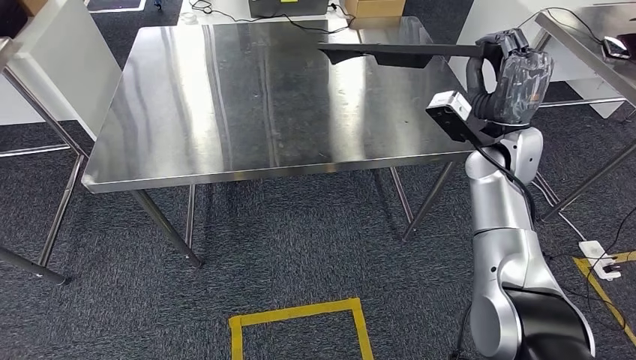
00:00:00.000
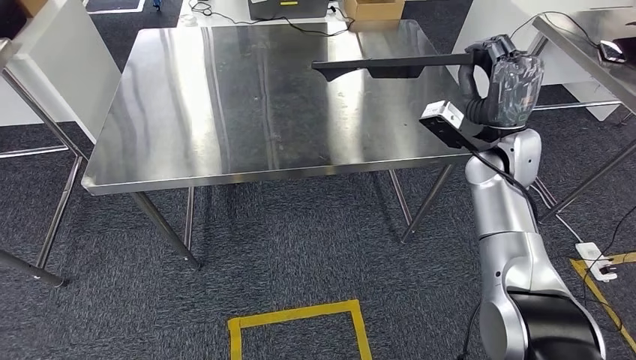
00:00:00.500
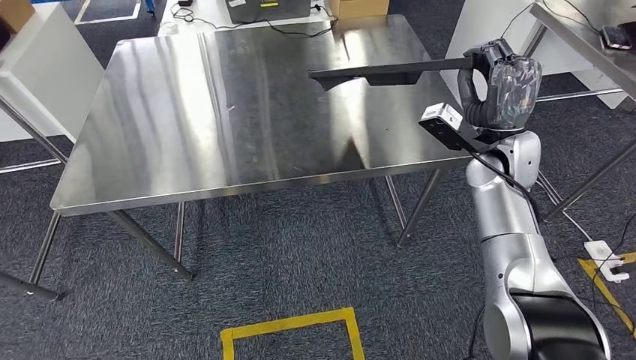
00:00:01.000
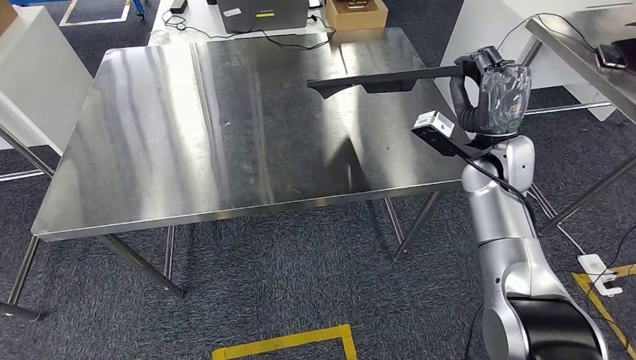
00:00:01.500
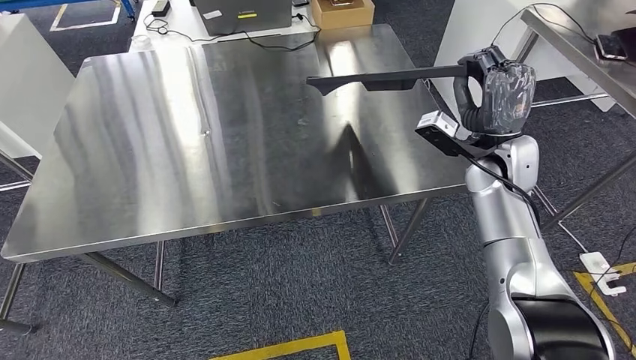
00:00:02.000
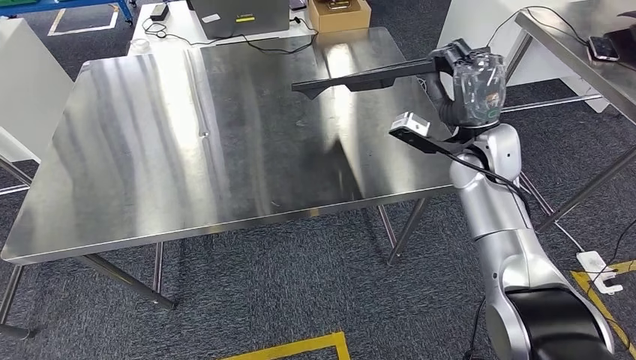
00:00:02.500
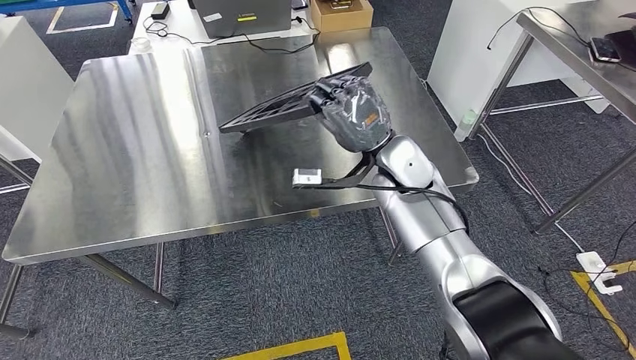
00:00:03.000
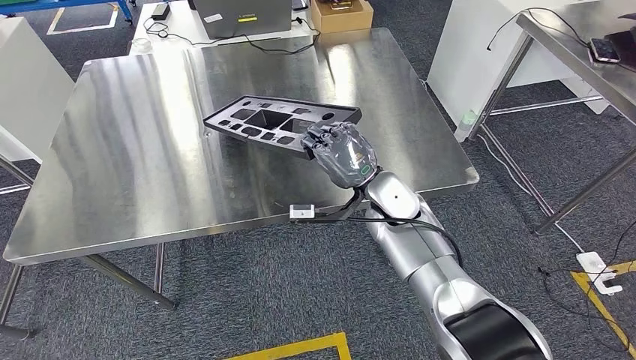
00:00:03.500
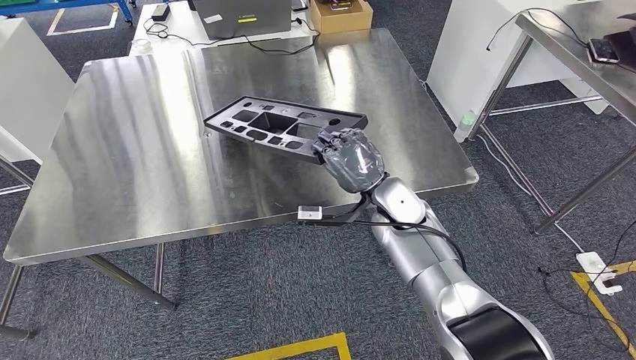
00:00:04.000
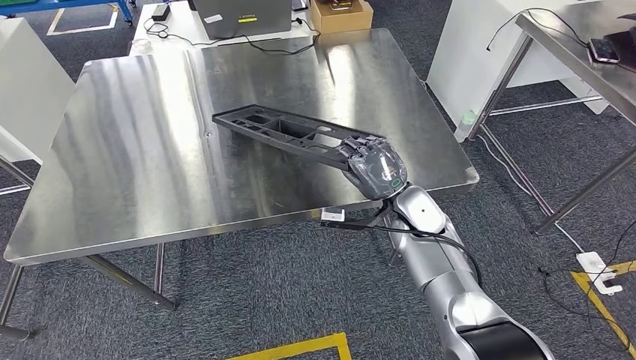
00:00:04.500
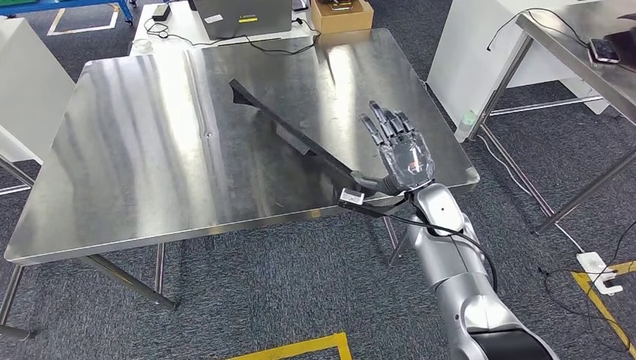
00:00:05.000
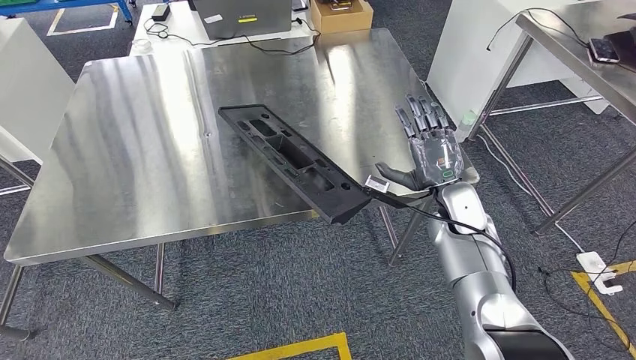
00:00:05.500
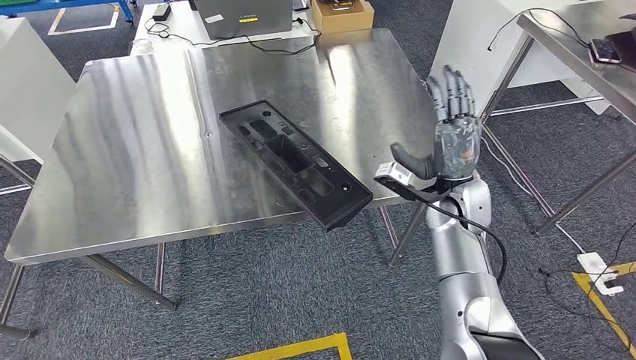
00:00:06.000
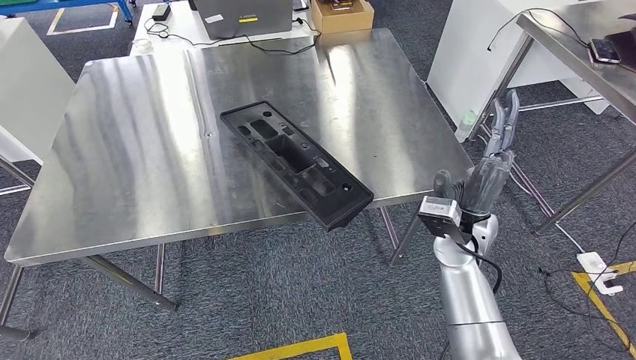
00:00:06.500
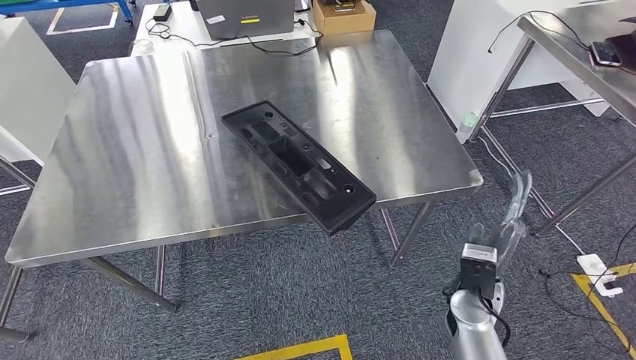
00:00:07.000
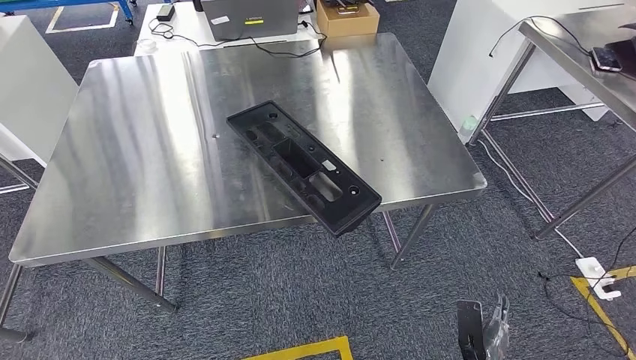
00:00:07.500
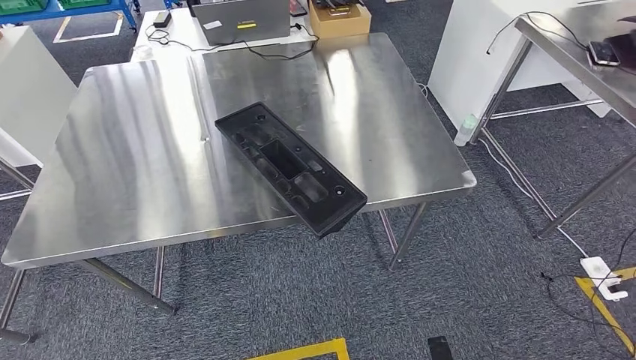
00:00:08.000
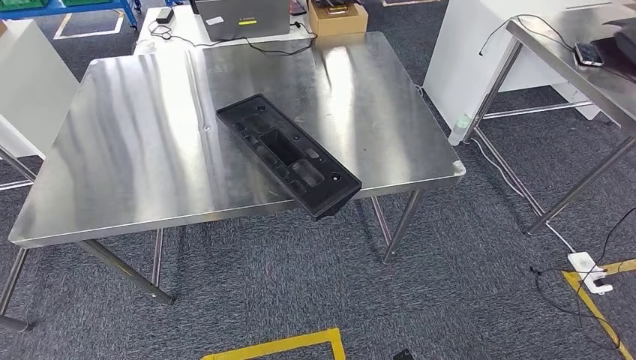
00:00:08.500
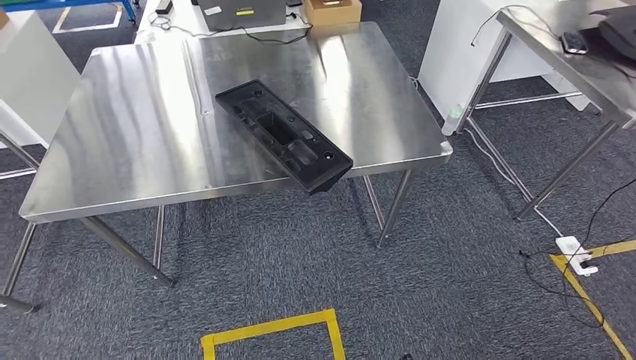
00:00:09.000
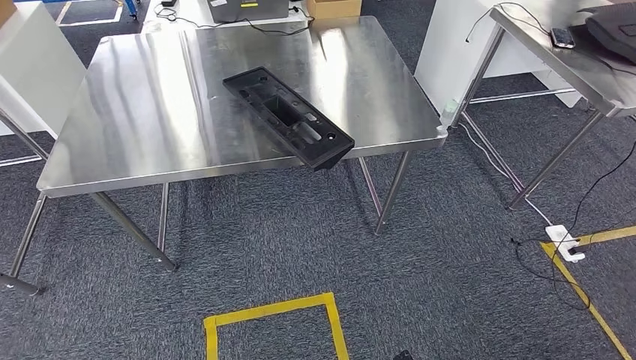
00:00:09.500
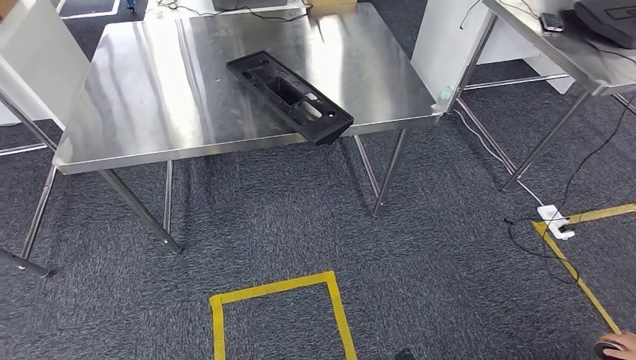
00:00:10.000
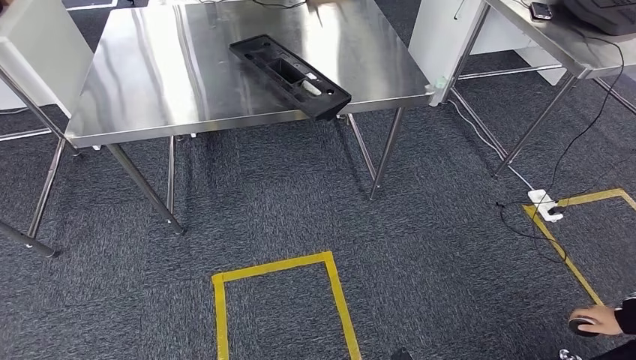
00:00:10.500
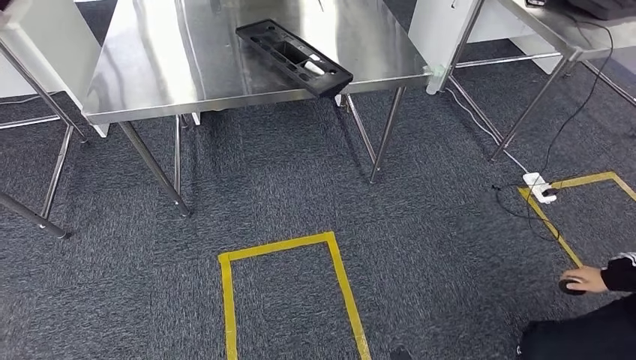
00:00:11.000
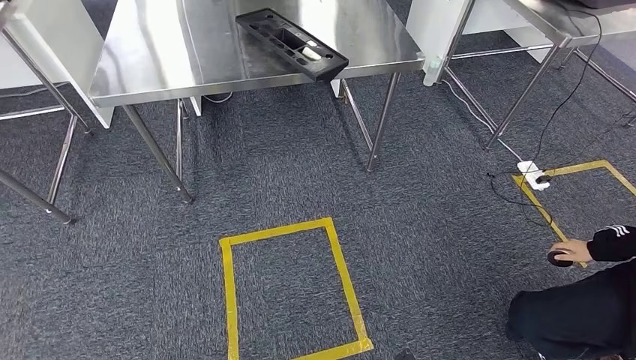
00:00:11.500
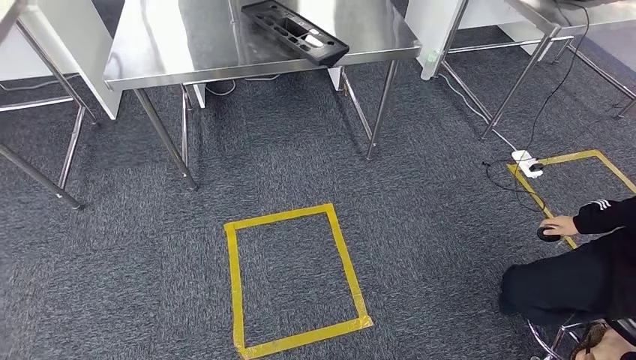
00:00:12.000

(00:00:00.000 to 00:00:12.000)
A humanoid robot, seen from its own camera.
Step, 00:00:00.000 - 00:00:07.000: Insert the large material into the corresponding slot on the workbench.
00:00:04.000 - 00:00:06.000: The right hand goes some 10 cm to the right.

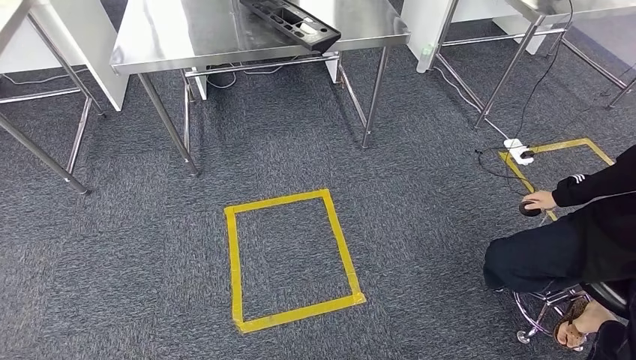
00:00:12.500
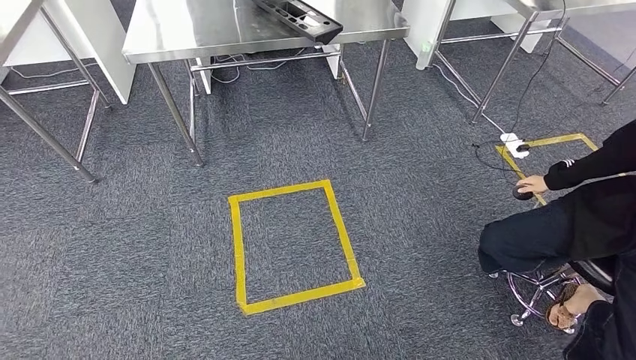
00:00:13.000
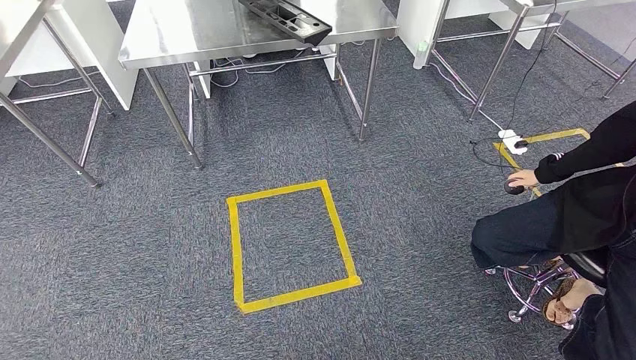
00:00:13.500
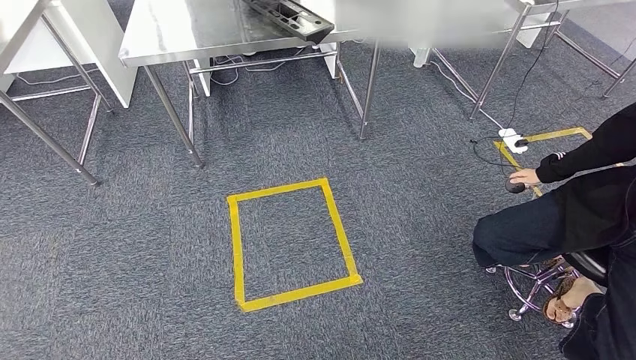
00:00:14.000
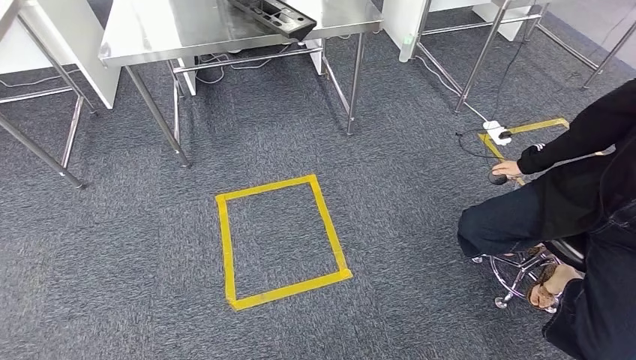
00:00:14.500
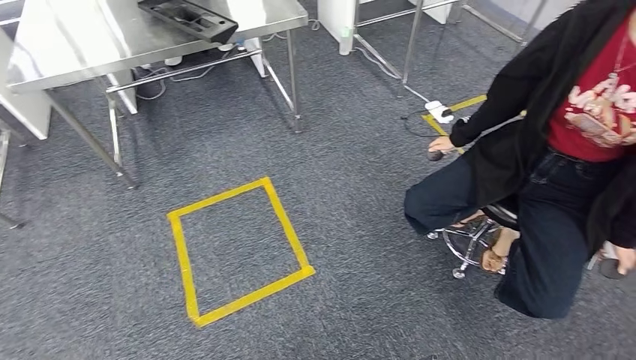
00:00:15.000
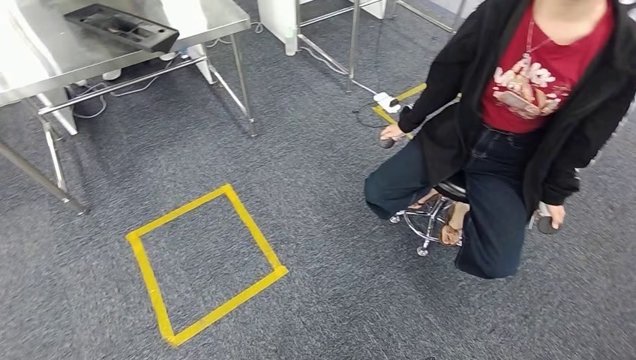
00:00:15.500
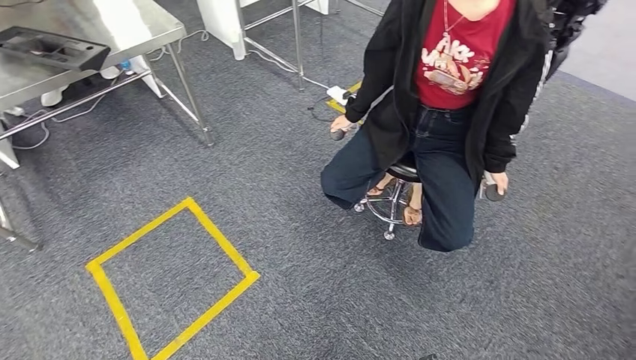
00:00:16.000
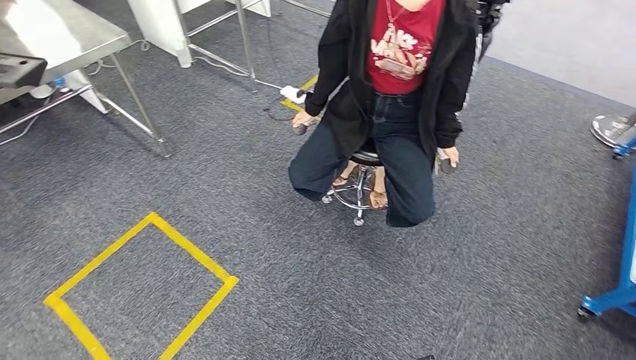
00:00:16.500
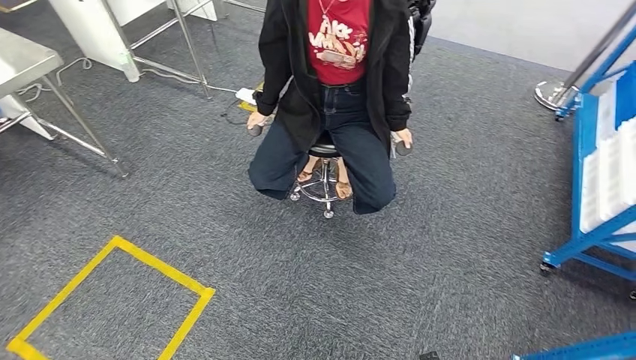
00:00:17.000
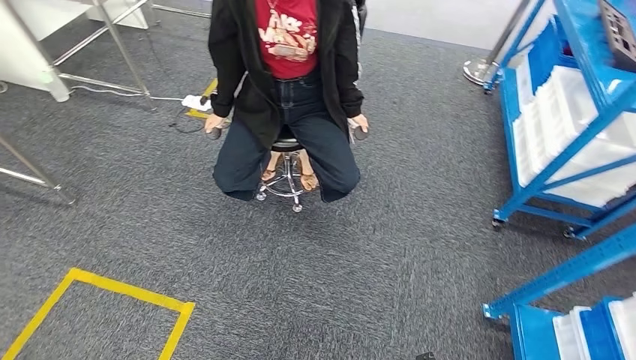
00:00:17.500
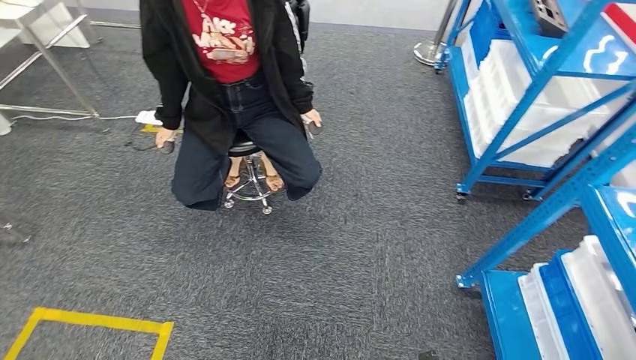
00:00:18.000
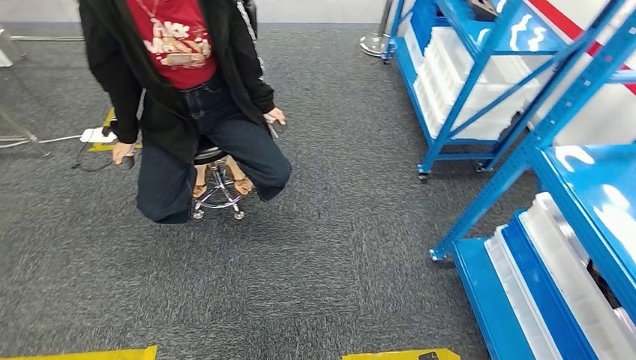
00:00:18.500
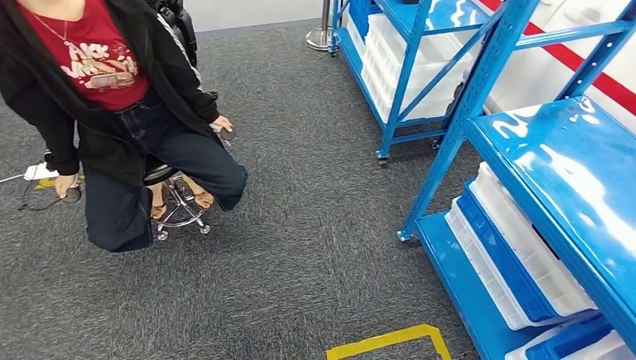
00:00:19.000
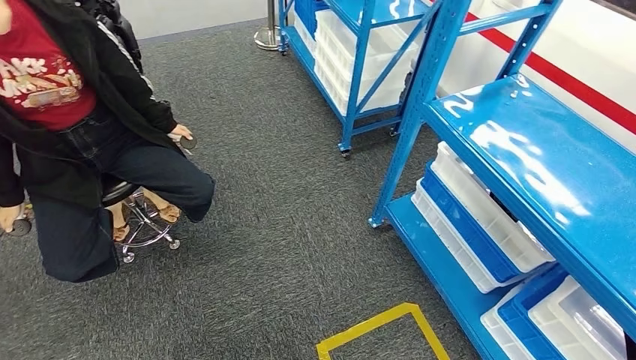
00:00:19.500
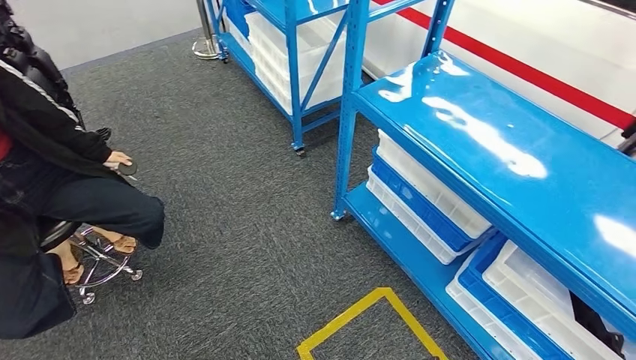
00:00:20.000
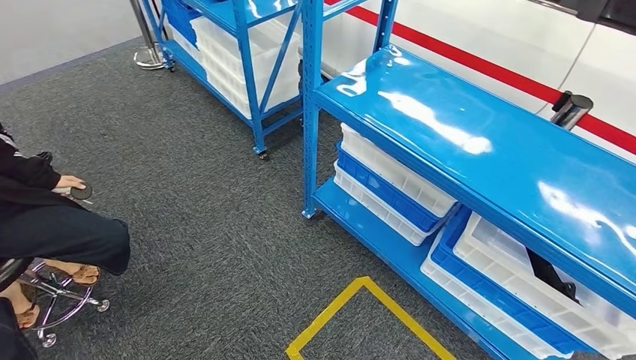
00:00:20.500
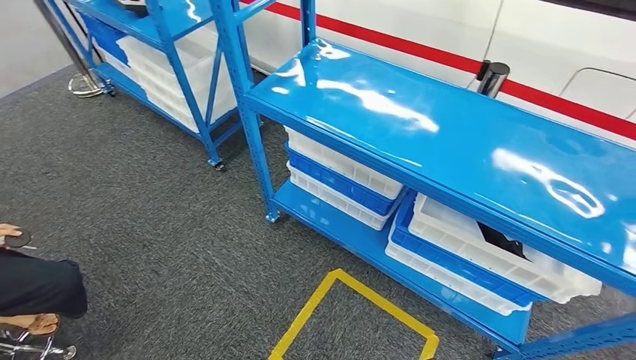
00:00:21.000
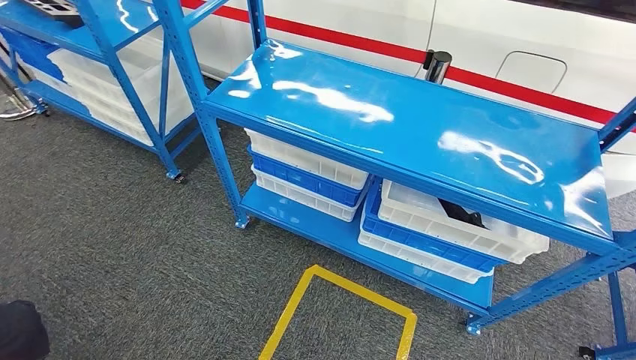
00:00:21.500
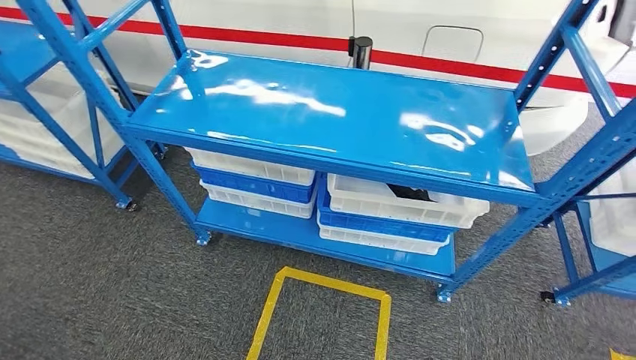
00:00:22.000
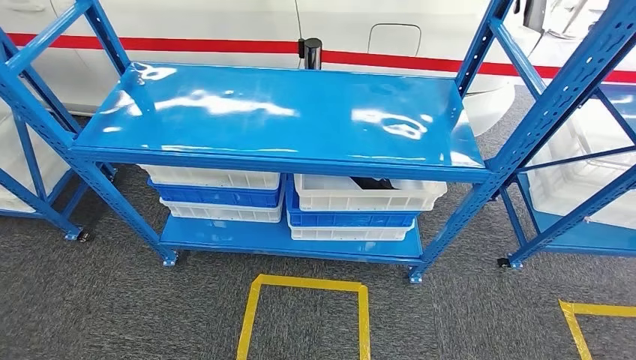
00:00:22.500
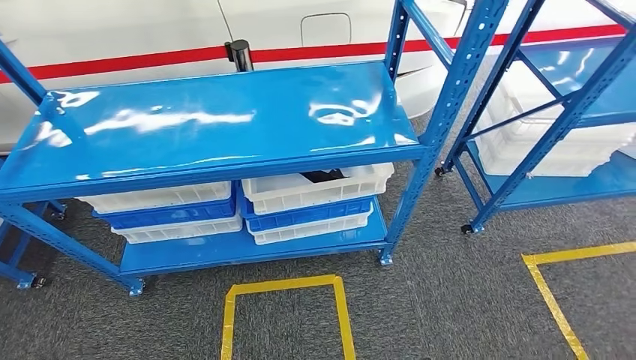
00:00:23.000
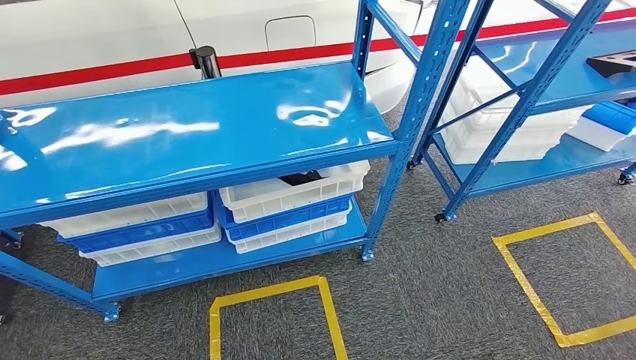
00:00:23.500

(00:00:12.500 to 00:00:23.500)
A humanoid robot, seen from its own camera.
Step, 00:00:12.500 - 00:00:23.500: Return to the initial position at the shelf.
